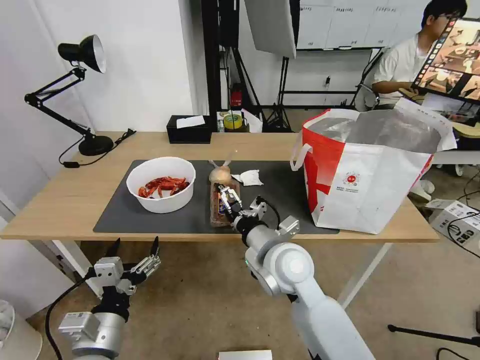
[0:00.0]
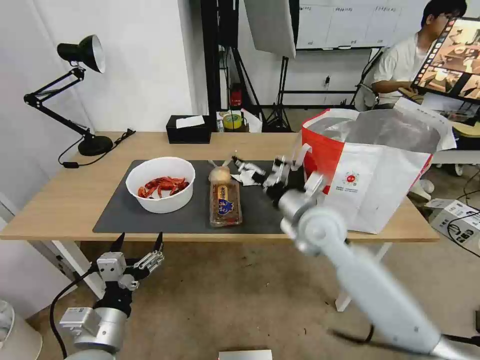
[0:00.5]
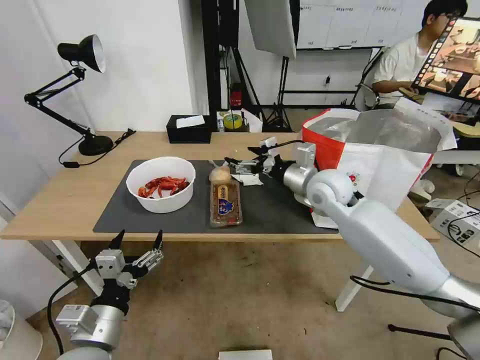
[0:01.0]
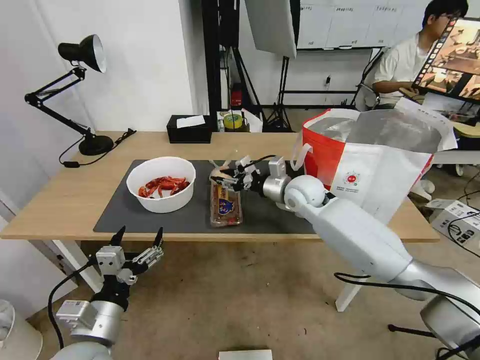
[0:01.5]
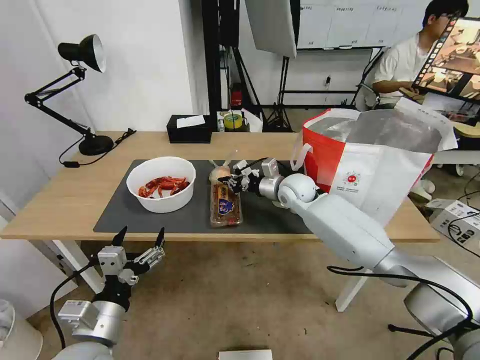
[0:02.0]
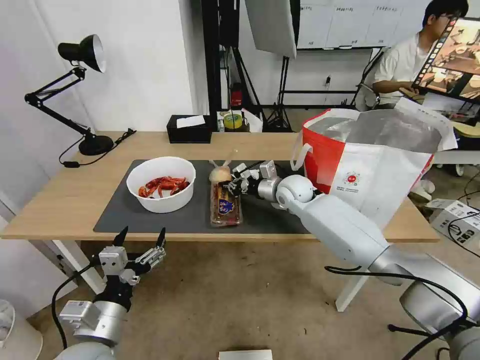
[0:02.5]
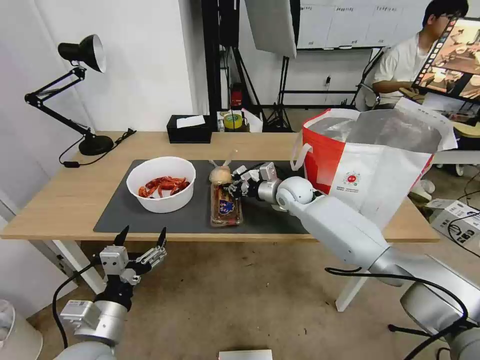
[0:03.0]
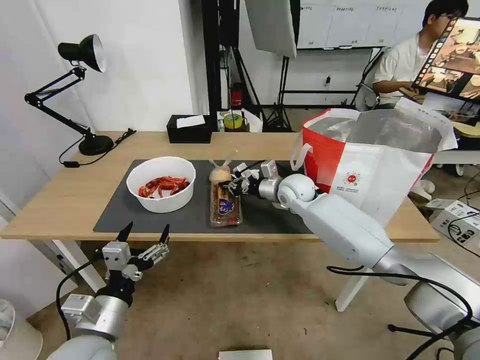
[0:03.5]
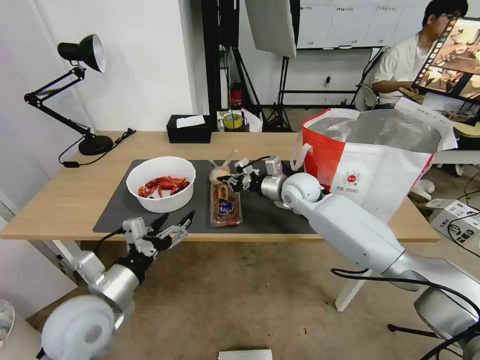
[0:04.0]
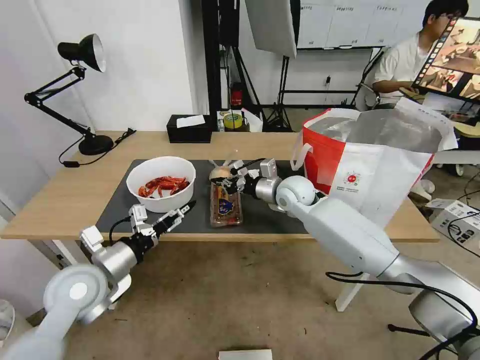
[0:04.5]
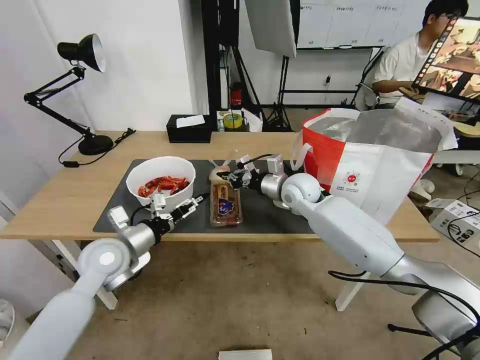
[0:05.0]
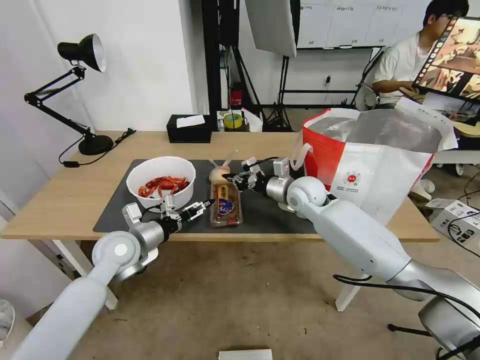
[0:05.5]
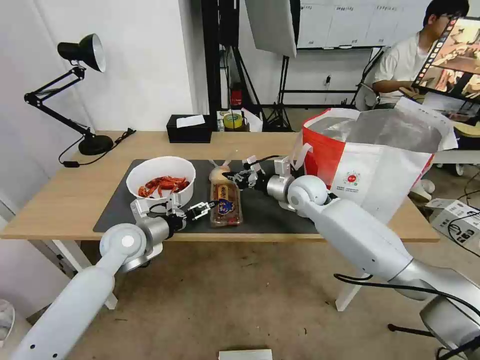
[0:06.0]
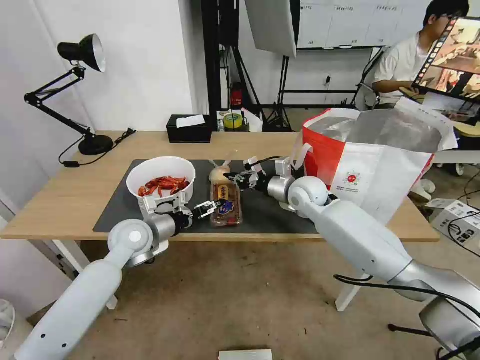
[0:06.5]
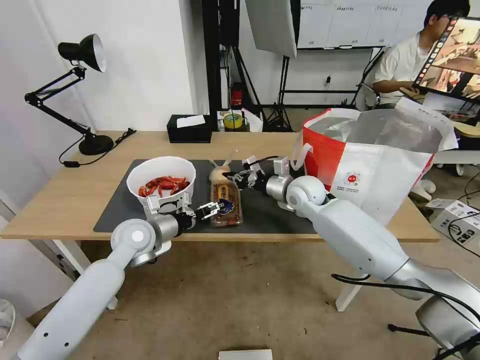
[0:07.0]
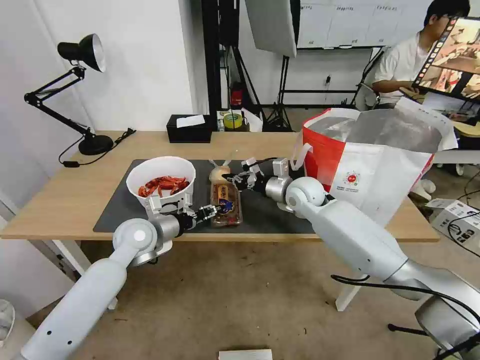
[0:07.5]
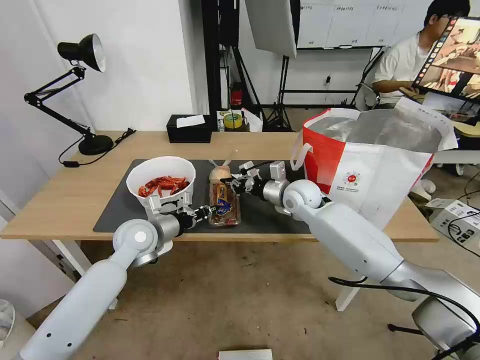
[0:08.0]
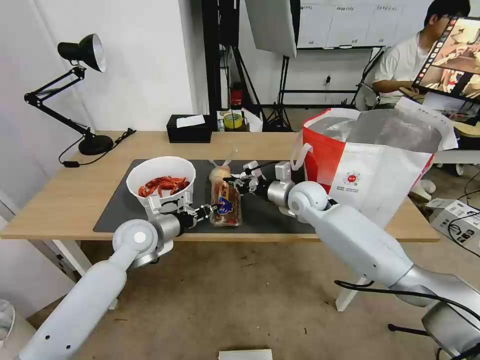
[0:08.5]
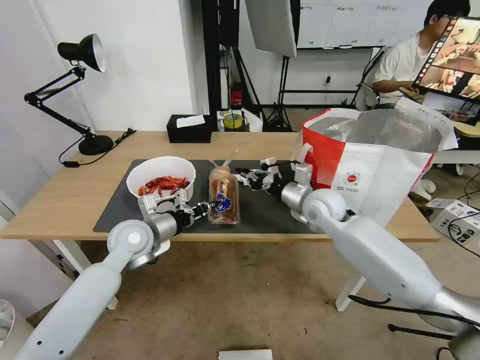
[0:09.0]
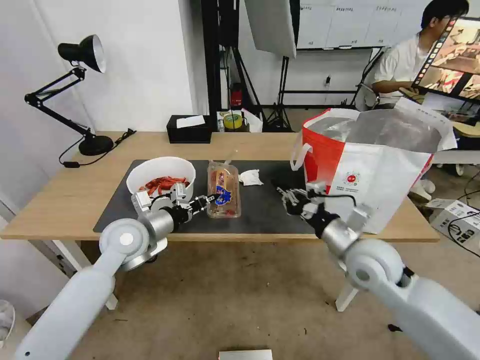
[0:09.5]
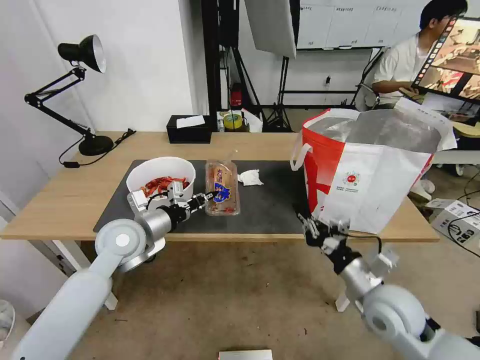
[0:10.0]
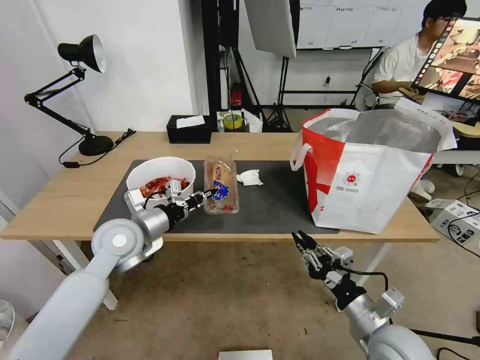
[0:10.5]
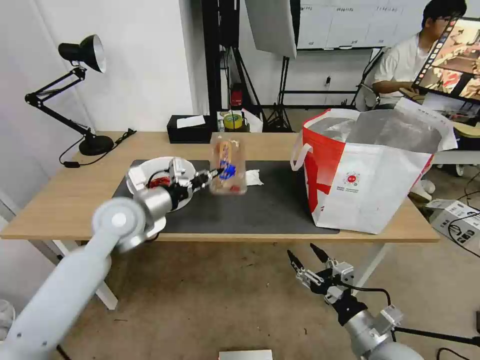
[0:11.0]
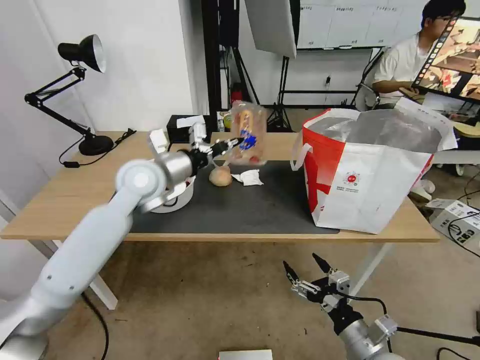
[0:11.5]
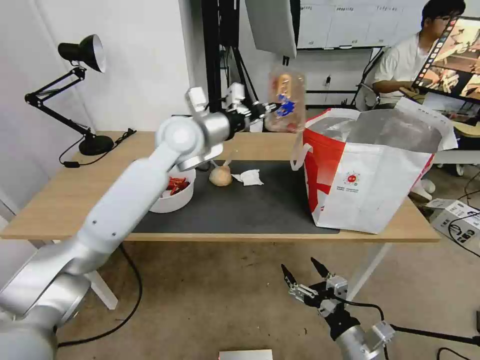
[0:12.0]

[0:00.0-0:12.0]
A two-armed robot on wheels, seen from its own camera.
Task of the whole recording: Pick up the trash from the table and place it into the takeout bag.
0:00.0 to 0:02.0: The right gripper moves forward, approximately 25 cm, and closes.
0:02.0 to 0:04.0: The left gripper heads forward, covering about 5 cm.
0:04.0 to 0:06.0: The left gripper goes about 20 cm forward.
0:06.0 to 0:08.0: The left gripper closes up.
0:08.0 to 0:10.0: The right gripper goes some 30 cm backward and to the right. The left gripper shifts by about 5 cm.
0:10.0 to 0:12.0: The left gripper heads upward, forward and to the right, covering roughly 25 cm. Meanwhile the right gripper moves backward and downward, some 15 cm, and opens up.

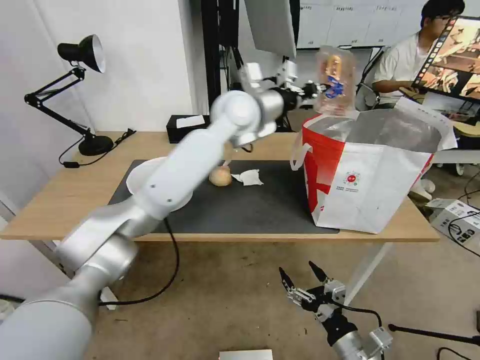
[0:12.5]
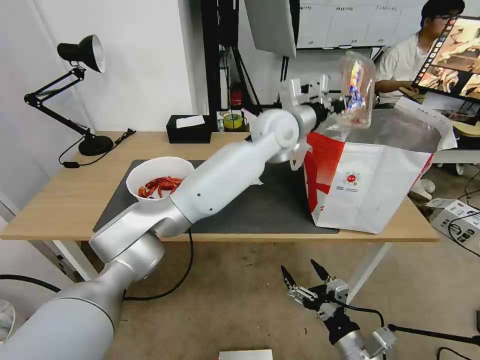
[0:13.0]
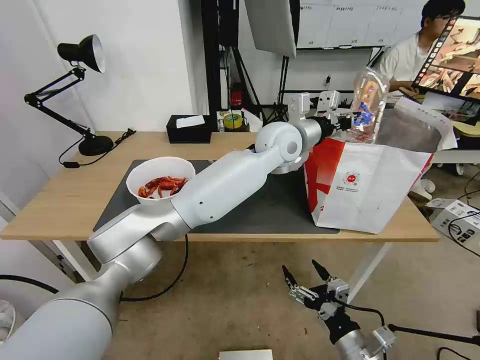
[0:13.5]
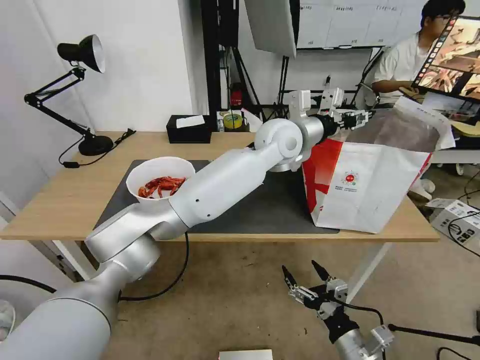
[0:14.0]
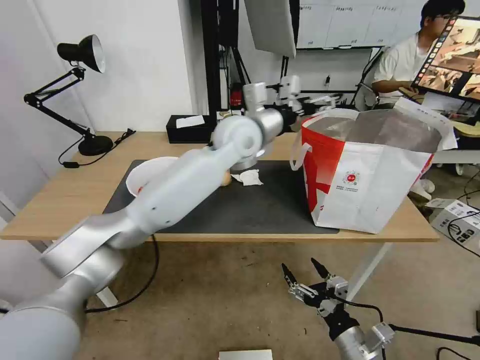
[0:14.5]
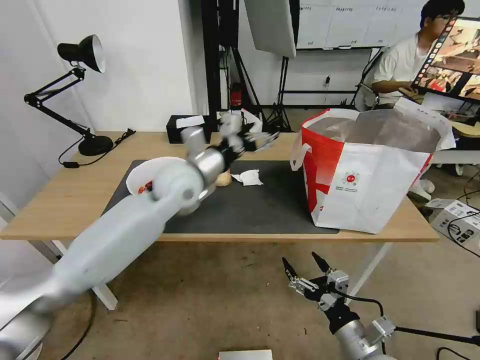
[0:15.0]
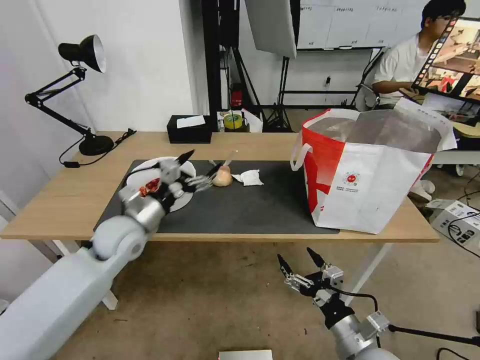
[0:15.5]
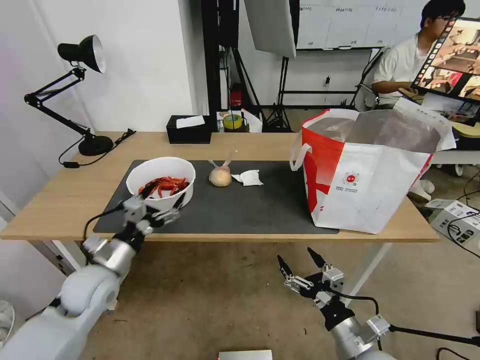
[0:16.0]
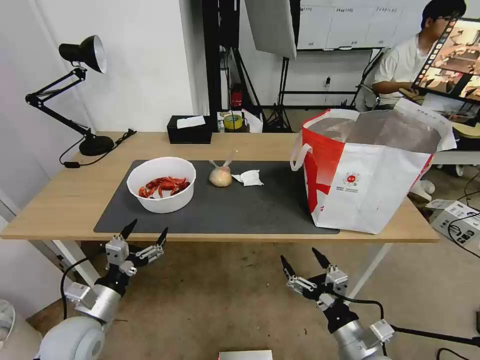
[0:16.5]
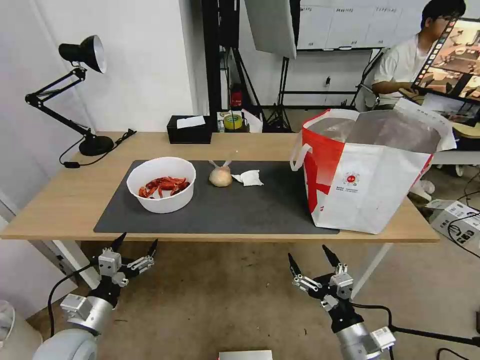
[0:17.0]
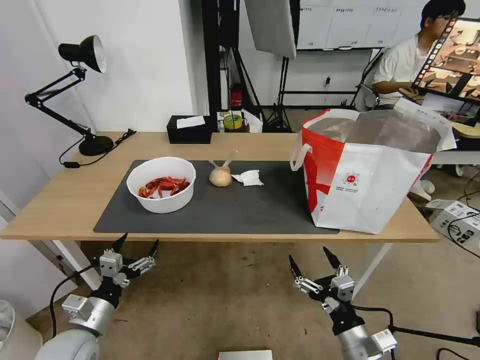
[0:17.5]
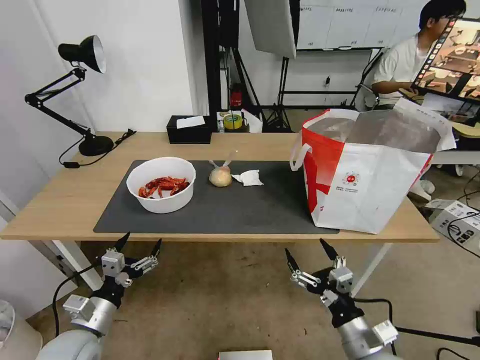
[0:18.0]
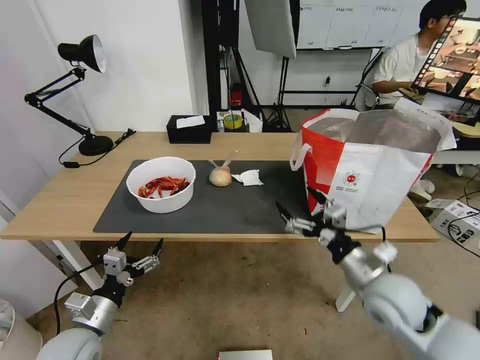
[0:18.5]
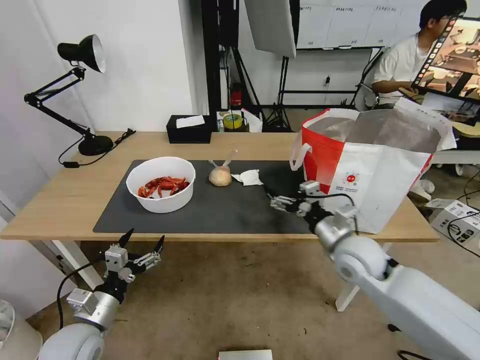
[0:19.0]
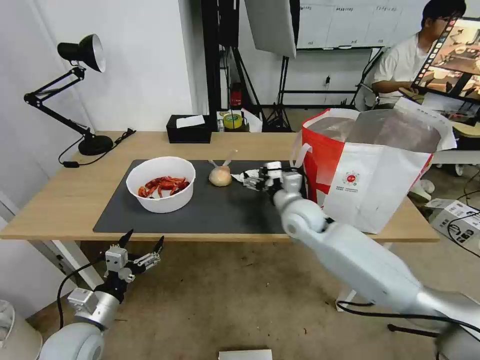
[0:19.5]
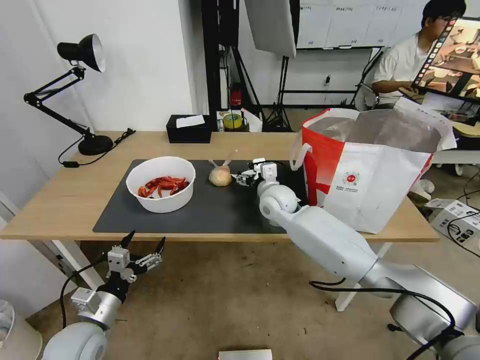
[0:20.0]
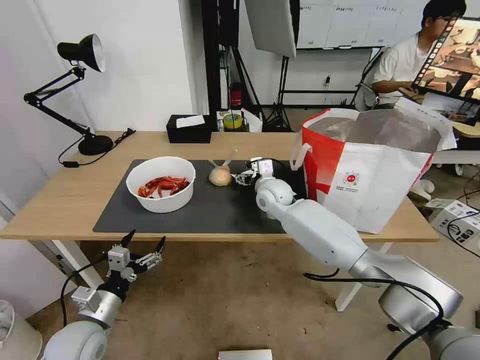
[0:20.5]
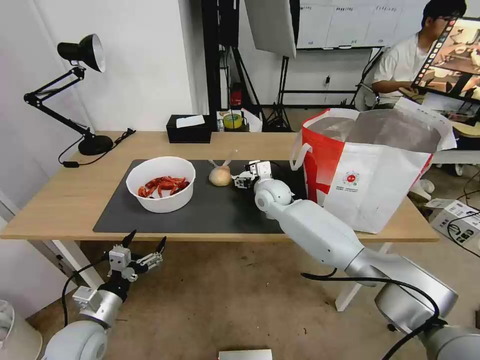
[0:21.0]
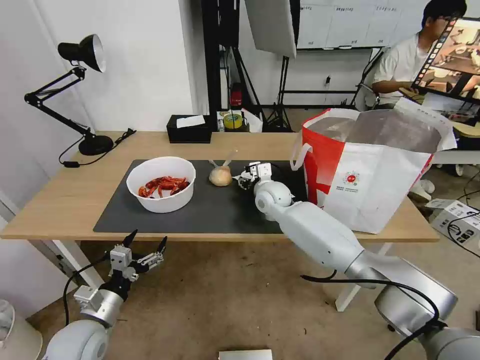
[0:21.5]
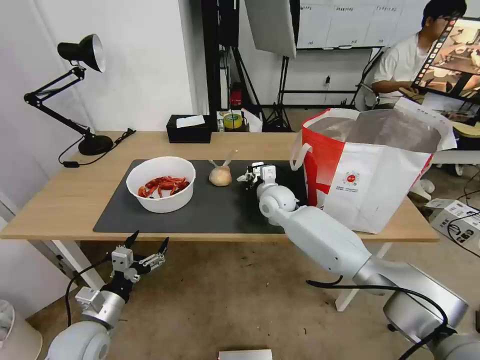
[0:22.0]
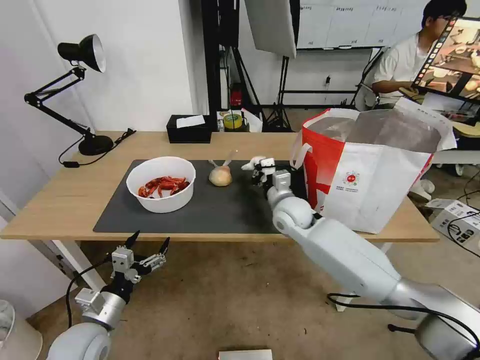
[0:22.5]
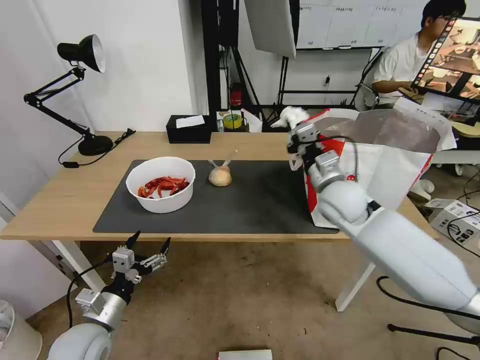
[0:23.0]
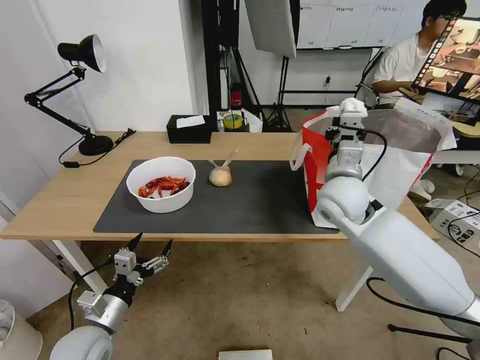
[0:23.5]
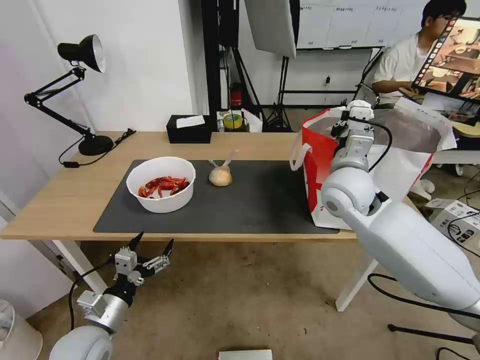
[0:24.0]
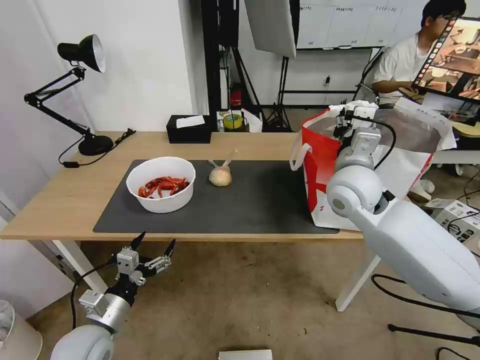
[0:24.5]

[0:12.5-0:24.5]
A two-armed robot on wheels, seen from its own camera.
Task of the whole recording: Pick up the trash from the table and place it into the takeout bag.
0:12.5 to 0:14.5: The left gripper travels to the right and back again, about 10 cm each way, and opens.
0:14.5 to 0:16.5: The left gripper moves to the left, backward and downward, some 50 cm.
0:16.5 to 0:18.5: The right gripper goes roughly 15 cm forward and upward.
0:18.5 to 0:20.5: The right gripper goes some 35 cm forward and to the left.
0:20.5 to 0:22.5: The right gripper moves backward, roughly 5 cm, and closes its fingers.
0:22.5 to 0:24.5: The right gripper shifts roughly 15 cm upward and to the right, and opens its fingers.

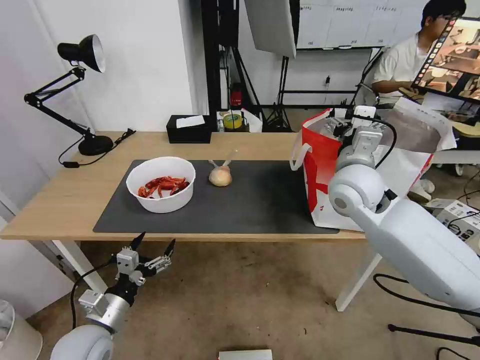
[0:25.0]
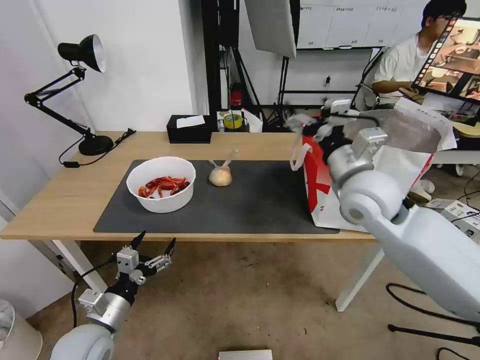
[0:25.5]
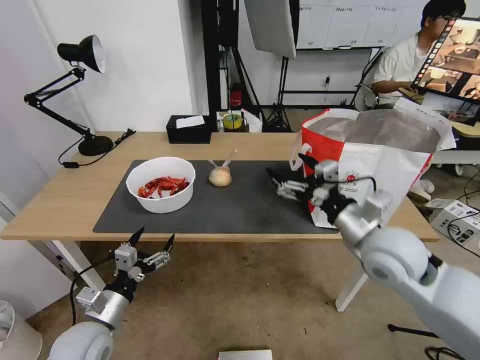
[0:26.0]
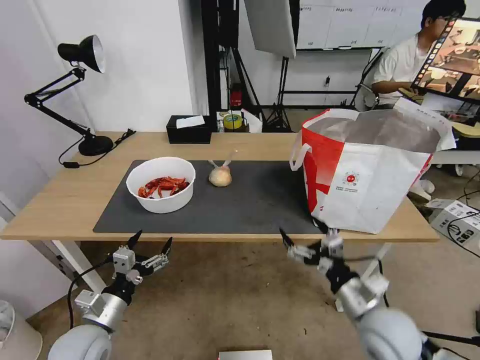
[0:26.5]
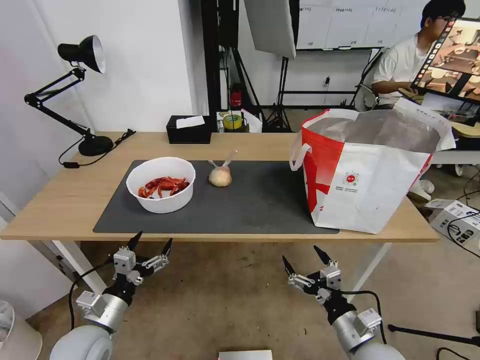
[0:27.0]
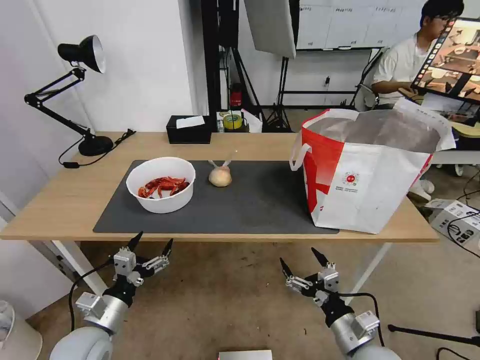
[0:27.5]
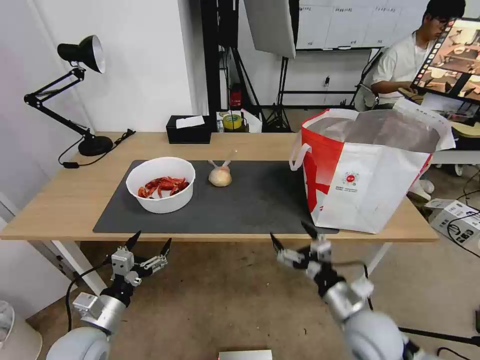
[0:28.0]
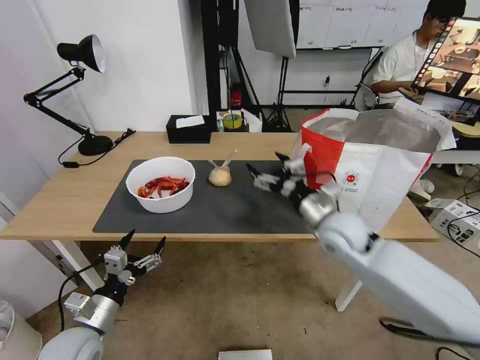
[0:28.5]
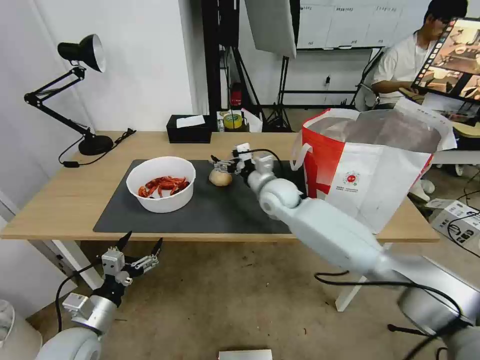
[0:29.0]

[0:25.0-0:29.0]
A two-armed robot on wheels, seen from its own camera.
Task of the whole recording: Pick up the trash from the table and place it into the takeout bag.
0:25.0 to 0:27.0: The right gripper moves backward and downward, some 35 cm.
0:27.0 to 0:29.0: The right gripper heads forward and to the left, covering about 40 cm.
